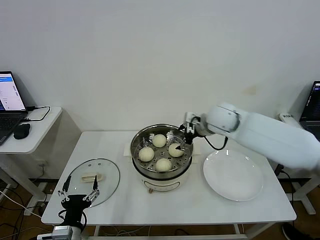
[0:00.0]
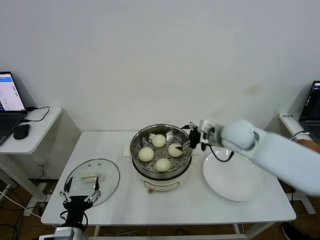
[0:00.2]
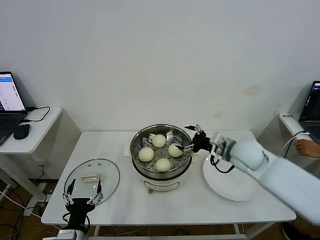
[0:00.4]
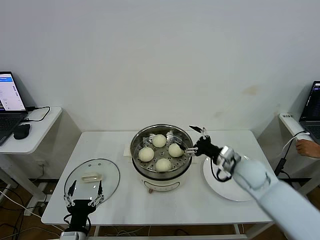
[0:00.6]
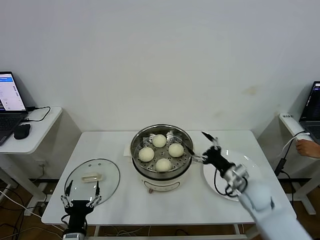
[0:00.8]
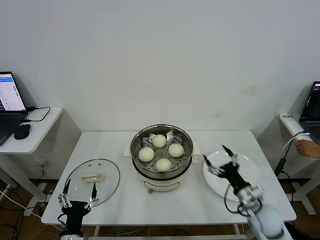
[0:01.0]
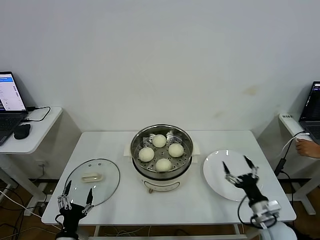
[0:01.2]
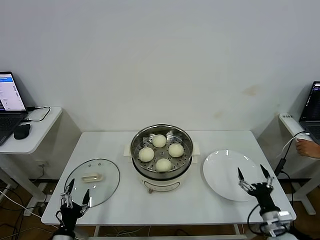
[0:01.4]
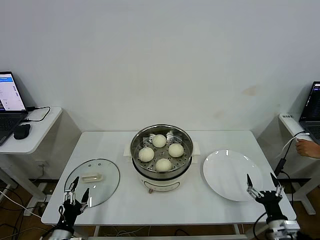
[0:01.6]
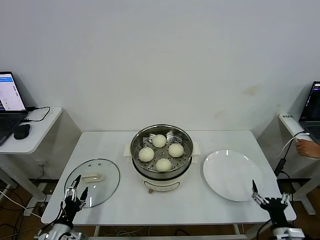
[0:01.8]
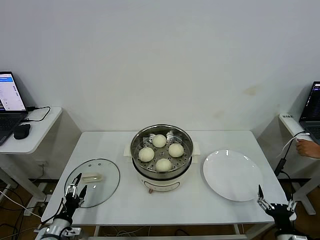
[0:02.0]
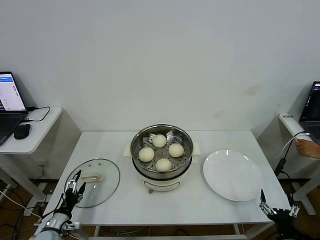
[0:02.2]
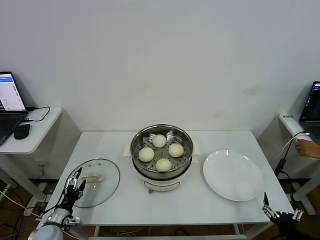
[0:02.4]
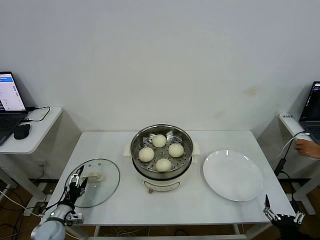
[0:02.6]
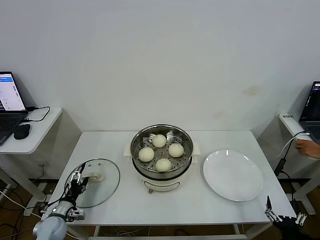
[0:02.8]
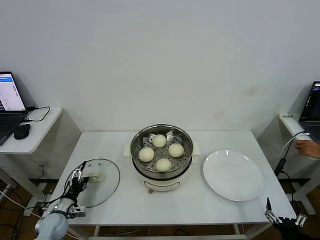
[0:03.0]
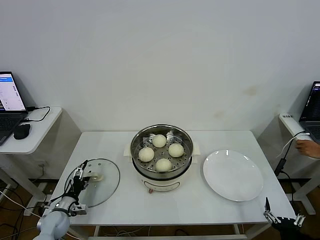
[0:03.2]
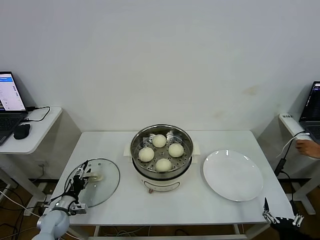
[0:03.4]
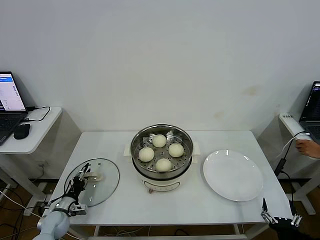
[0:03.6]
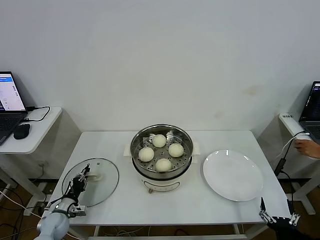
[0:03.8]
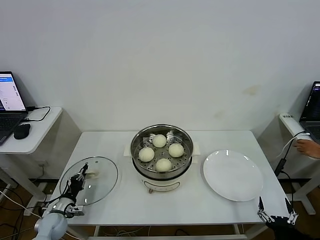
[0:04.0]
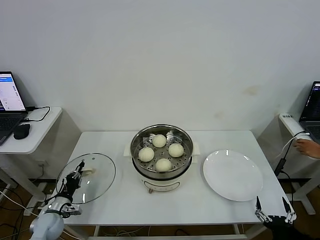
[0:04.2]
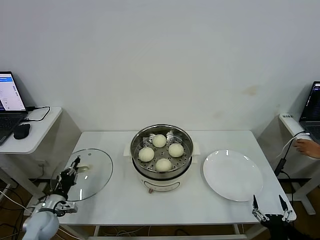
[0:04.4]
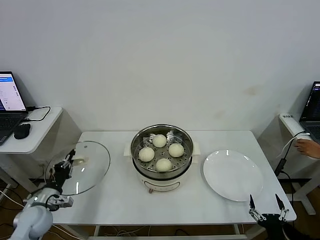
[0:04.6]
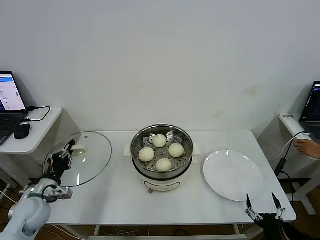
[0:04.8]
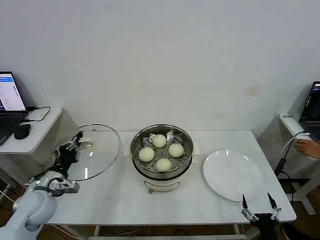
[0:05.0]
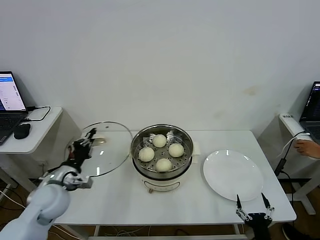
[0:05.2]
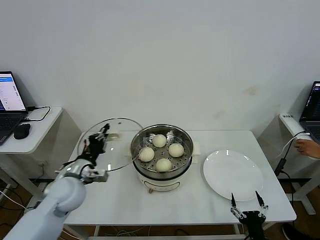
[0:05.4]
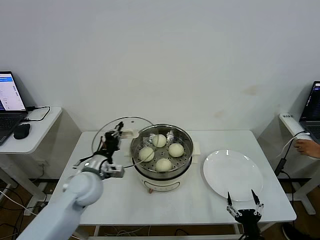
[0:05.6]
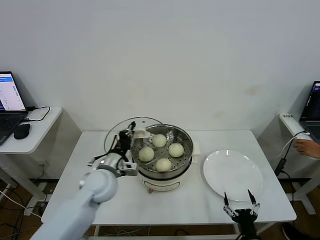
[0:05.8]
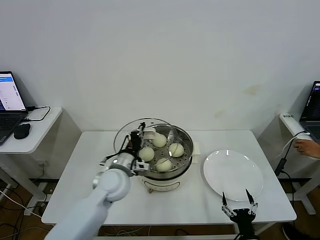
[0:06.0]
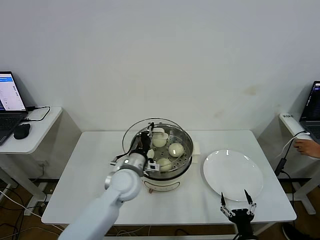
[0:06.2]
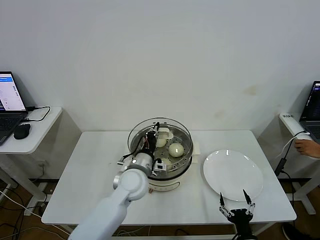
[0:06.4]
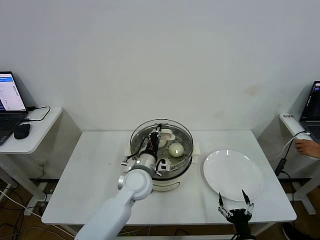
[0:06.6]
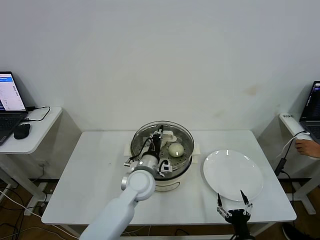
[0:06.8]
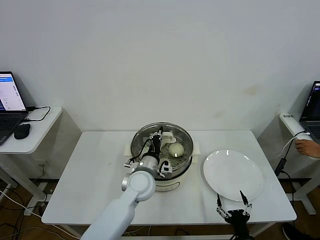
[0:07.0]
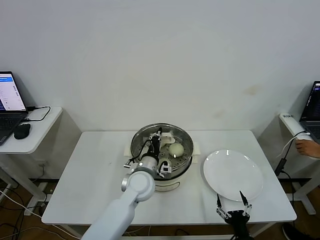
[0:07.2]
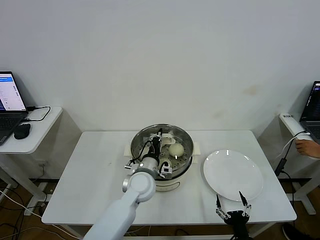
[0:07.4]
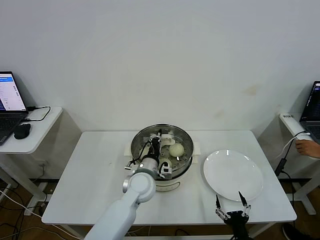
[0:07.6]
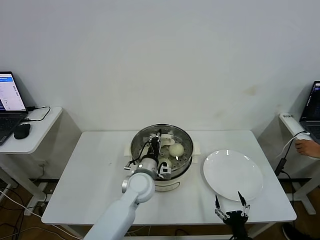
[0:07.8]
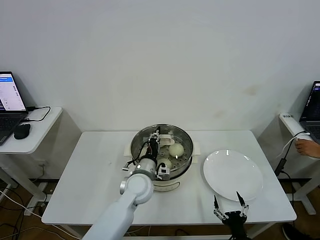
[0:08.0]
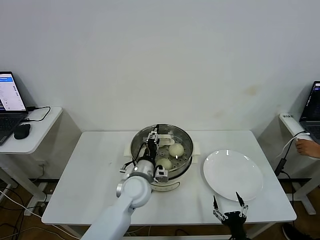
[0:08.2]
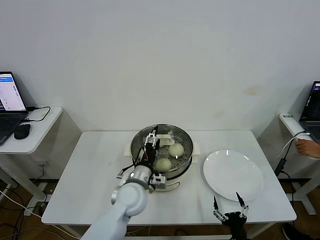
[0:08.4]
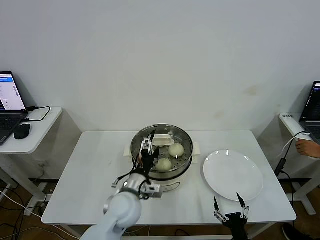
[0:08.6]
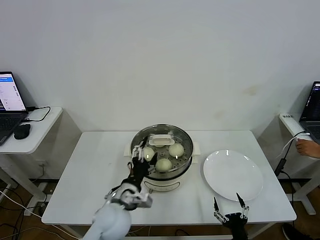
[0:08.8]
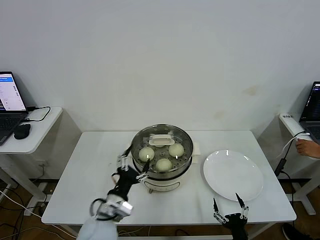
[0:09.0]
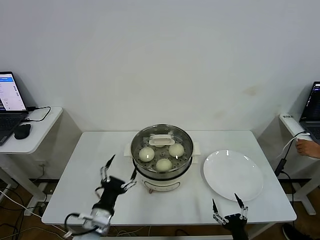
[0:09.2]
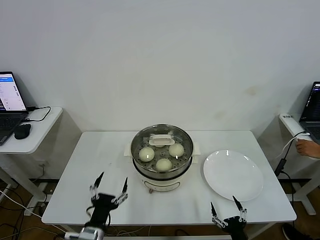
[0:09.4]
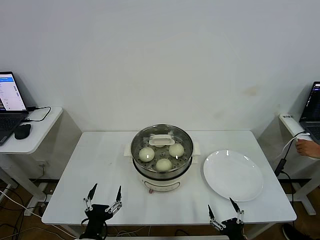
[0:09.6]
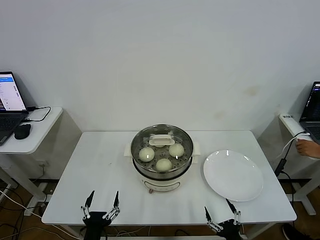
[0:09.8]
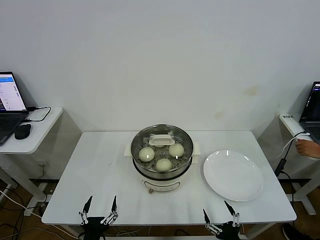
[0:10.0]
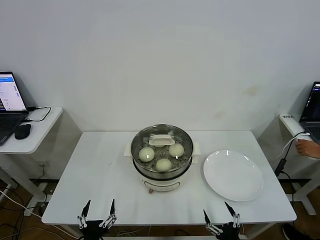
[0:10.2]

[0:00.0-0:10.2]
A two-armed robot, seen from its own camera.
Step, 0:00.6 to 0:04.2: Grasp the pot lid with left gripper.
Step, 0:04.4 to 0:08.6: Place the pot lid on the steamer with left gripper.
0:00.0 to 0:01.4: The left gripper travels downward and to the left by about 10 cm. The right gripper is displaced backward, downward and to the right by about 40 cm.
0:01.4 to 0:03.0: The right gripper heads backward, covering some 10 cm. The left gripper is displaced forward, to the left and downward by about 20 cm.
0:03.0 to 0:04.4: The left gripper closes up.
0:04.4 to 0:05.8: The left gripper travels to the right and upward by some 30 cm; the right gripper heads to the left, covering roughly 5 cm.
0:05.8 to 0:07.2: The left gripper shifts some 10 cm to the right.
0:07.2 to 0:08.8: The left gripper heads backward and to the left, covering roughly 10 cm, and opens.
0:08.8 to 0:10.2: The left gripper goes some 25 cm backward, to the left and downward.
